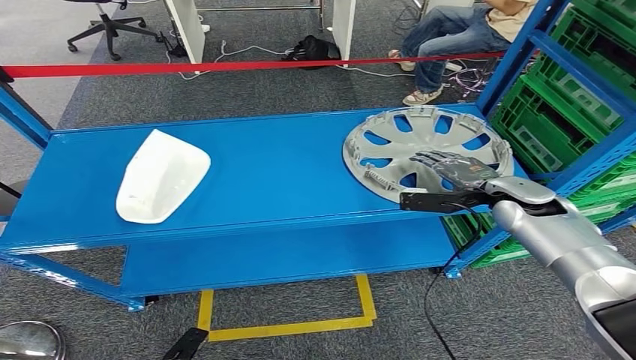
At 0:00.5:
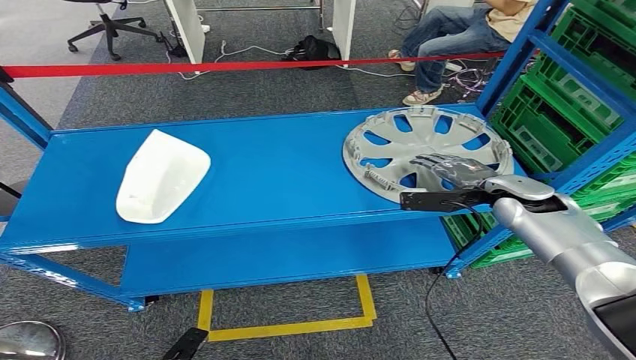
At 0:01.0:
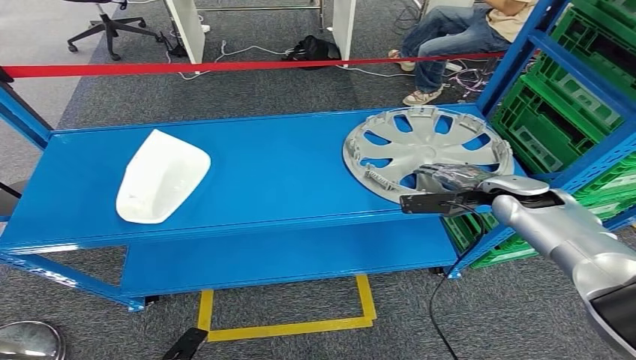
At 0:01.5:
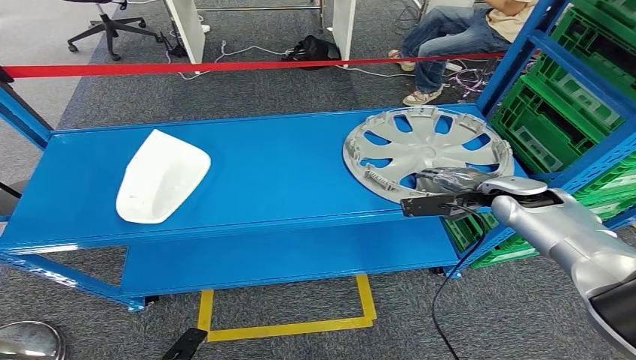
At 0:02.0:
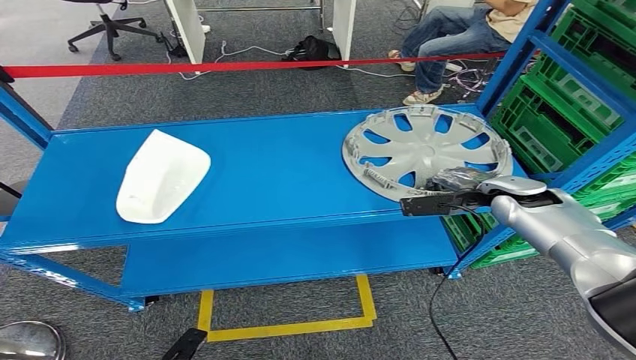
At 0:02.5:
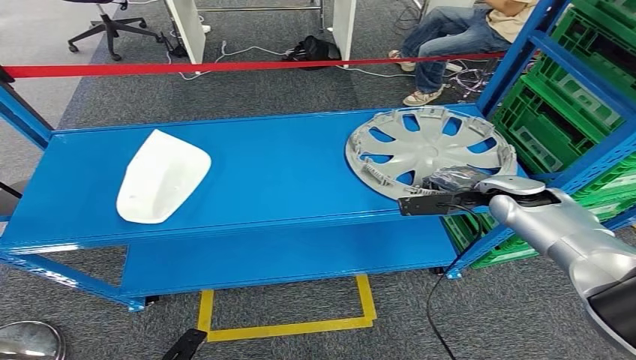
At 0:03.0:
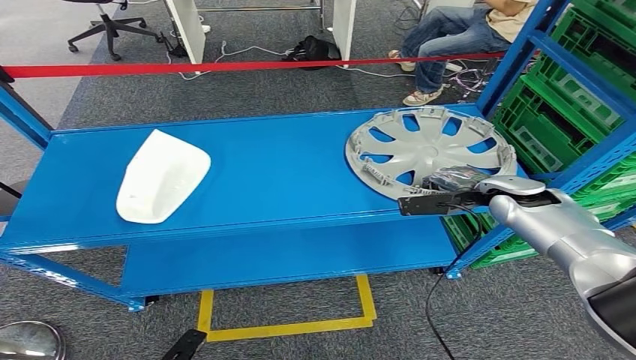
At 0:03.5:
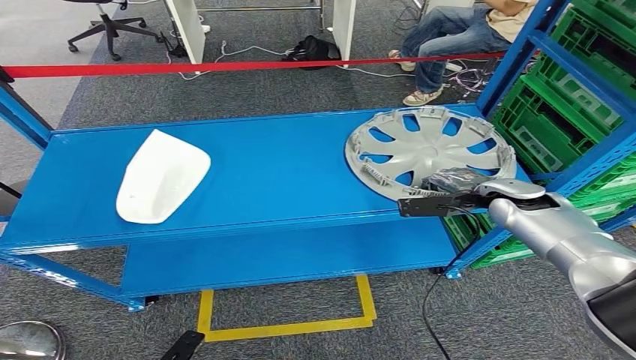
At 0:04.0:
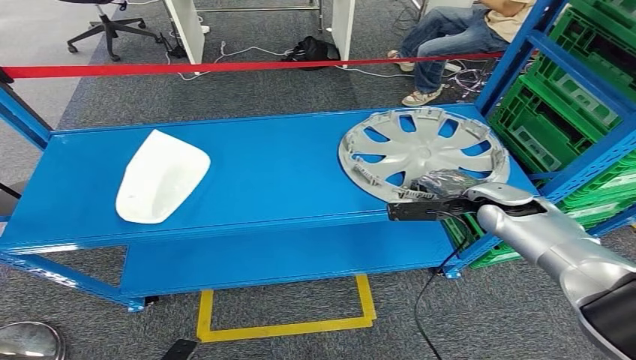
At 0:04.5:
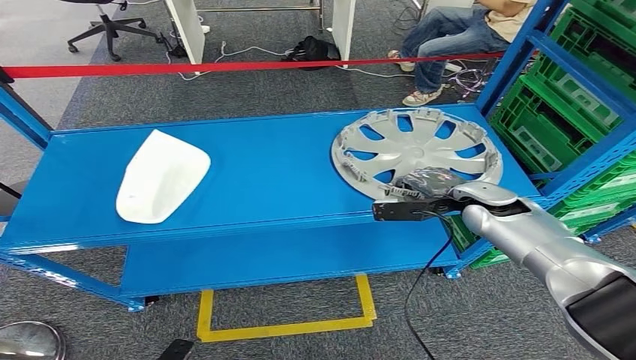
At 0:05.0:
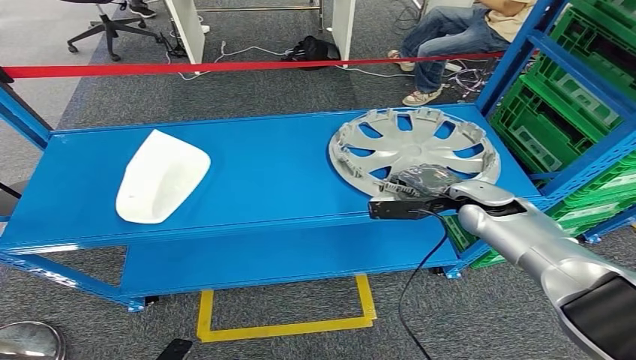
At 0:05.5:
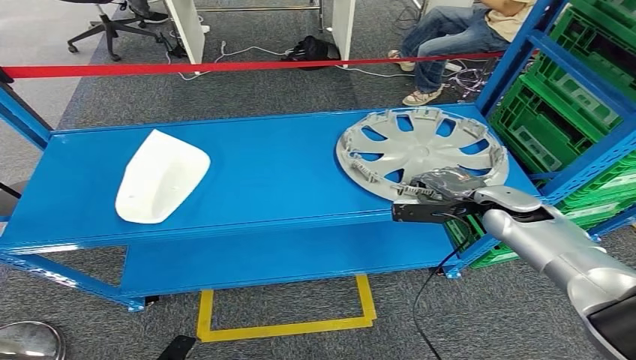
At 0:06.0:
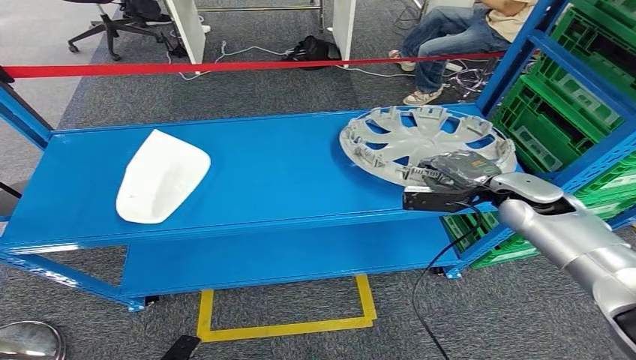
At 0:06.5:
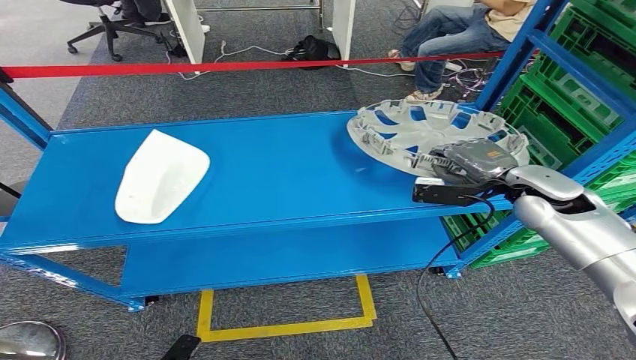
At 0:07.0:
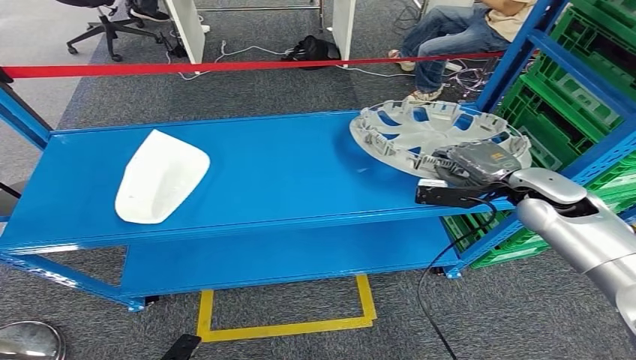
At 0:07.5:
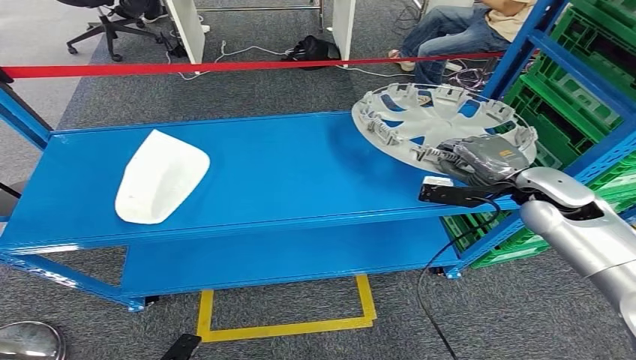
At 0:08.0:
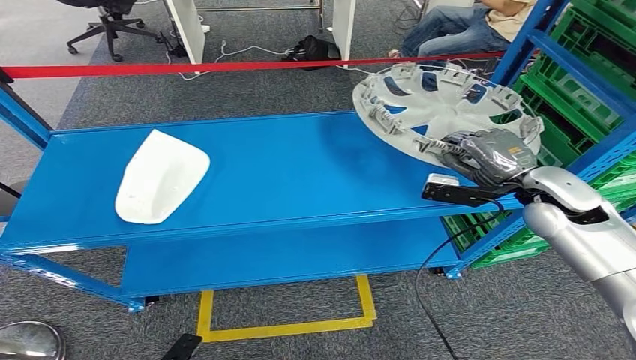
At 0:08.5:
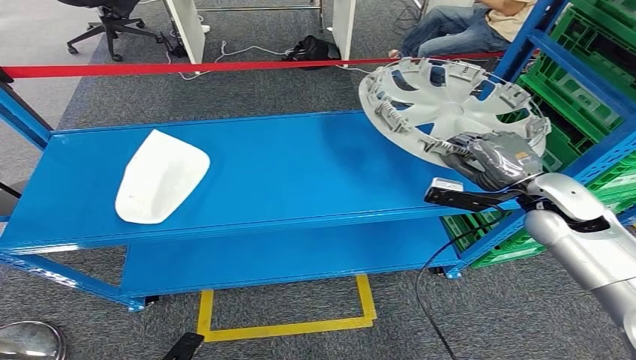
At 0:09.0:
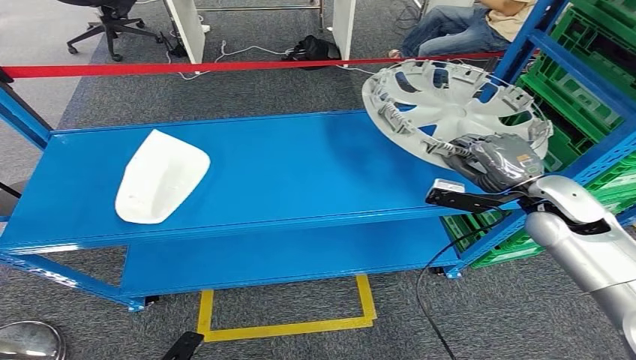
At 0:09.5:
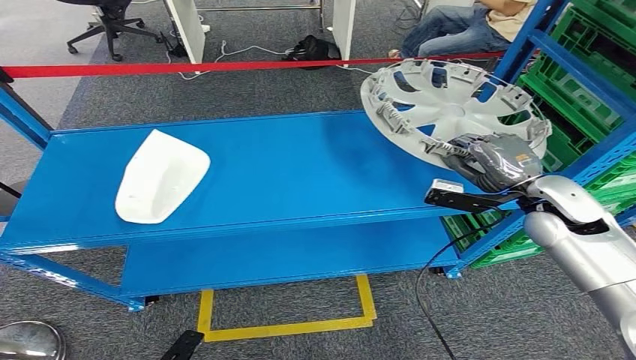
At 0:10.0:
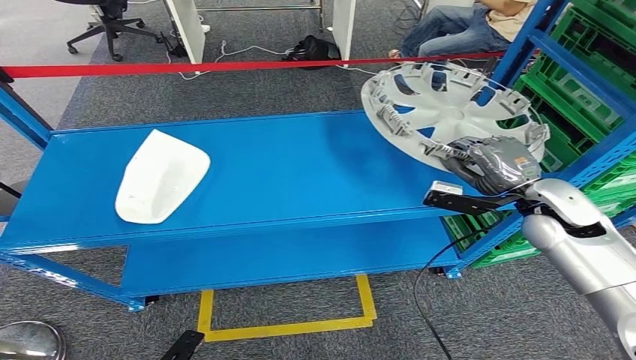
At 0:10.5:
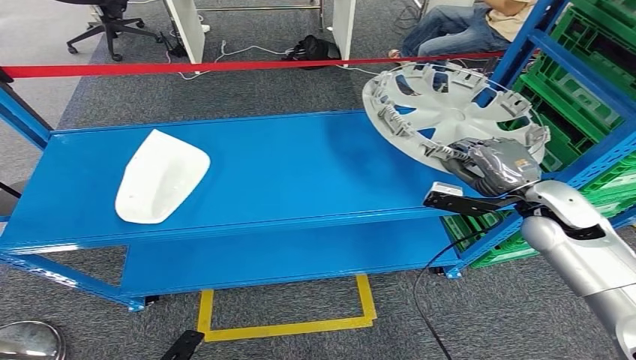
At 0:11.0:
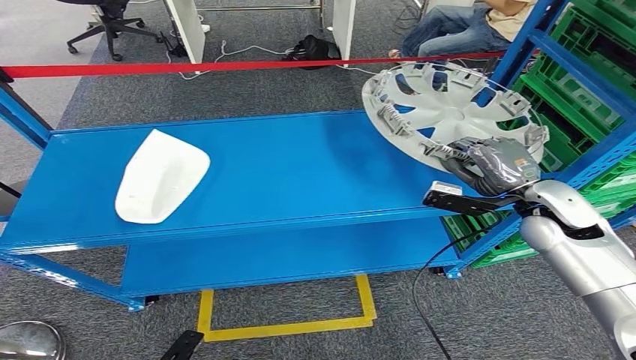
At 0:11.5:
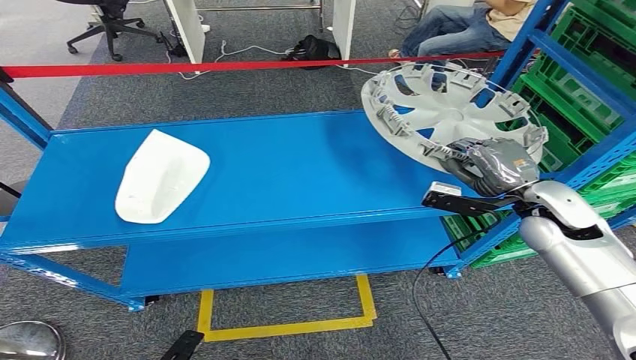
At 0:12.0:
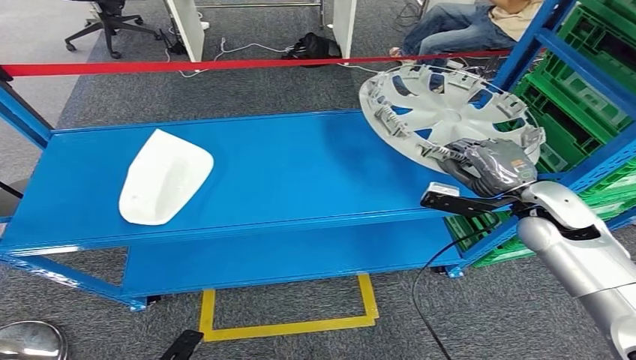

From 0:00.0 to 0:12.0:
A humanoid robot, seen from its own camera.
Step, from 0:00.0 to 0:02.5: Grasp the gray part with right gripper.
From 0:00.0 to 0:06.0: The hands make only small movements.
From 0:06.0 to 0:08.0: The hands move only a little.
From 0:08.0 to 0:10.0: The hands move only a little.
From 0:10.0 to 0:12.0: Both hands stay about where they are.

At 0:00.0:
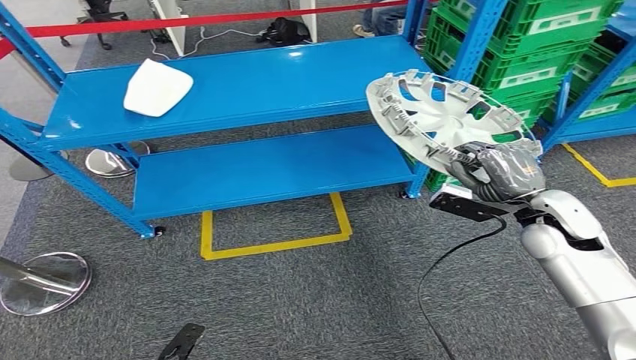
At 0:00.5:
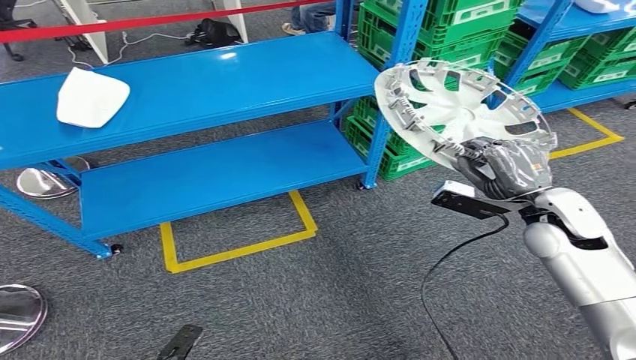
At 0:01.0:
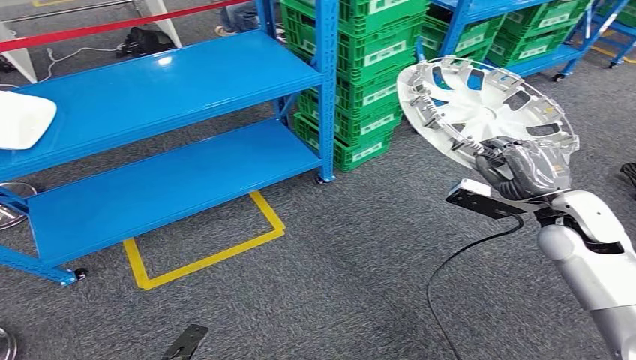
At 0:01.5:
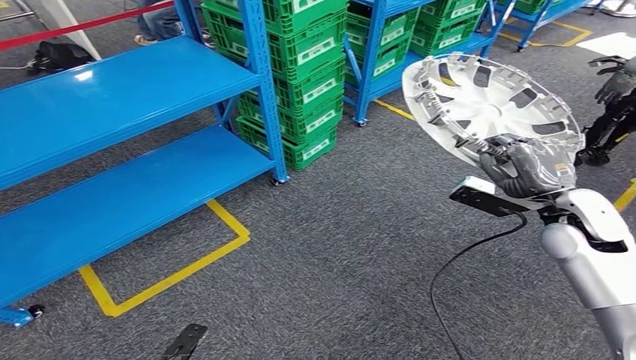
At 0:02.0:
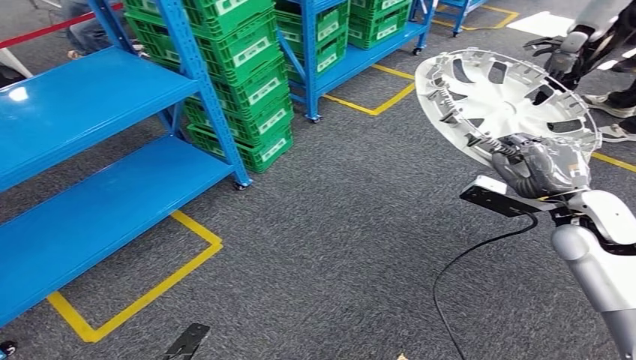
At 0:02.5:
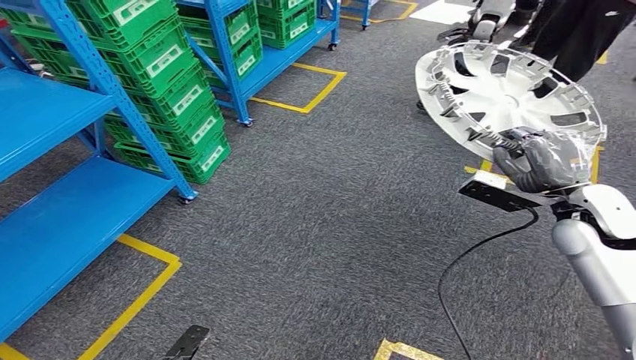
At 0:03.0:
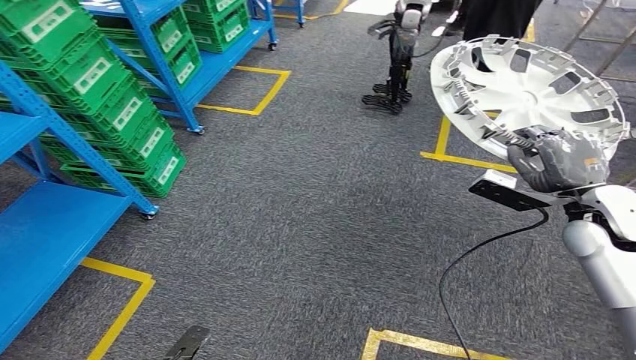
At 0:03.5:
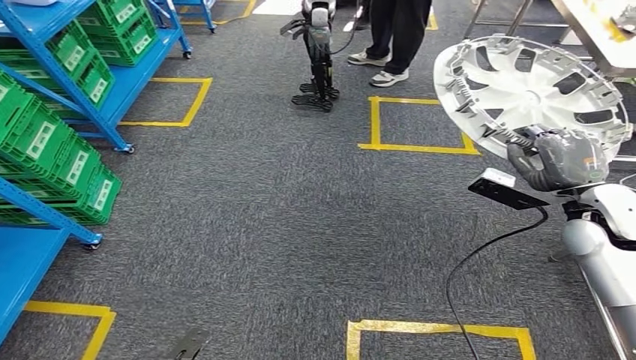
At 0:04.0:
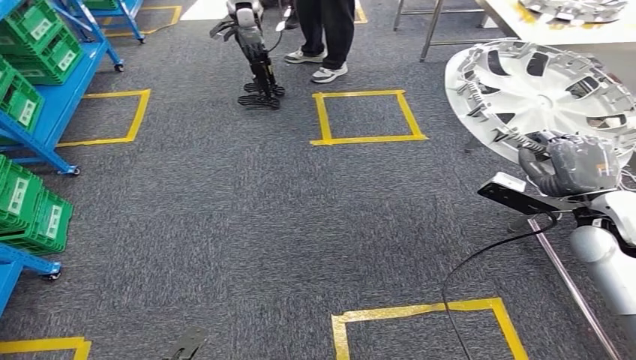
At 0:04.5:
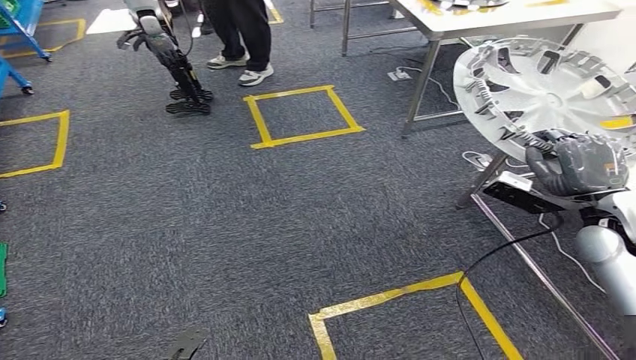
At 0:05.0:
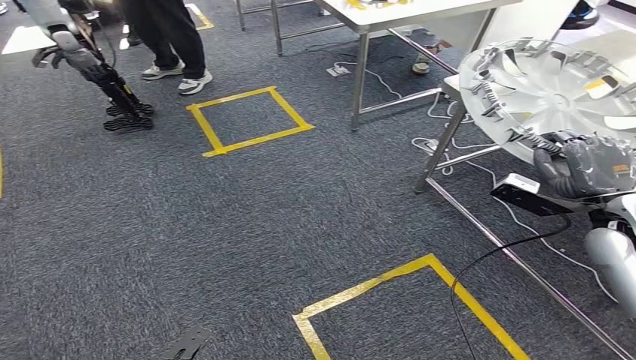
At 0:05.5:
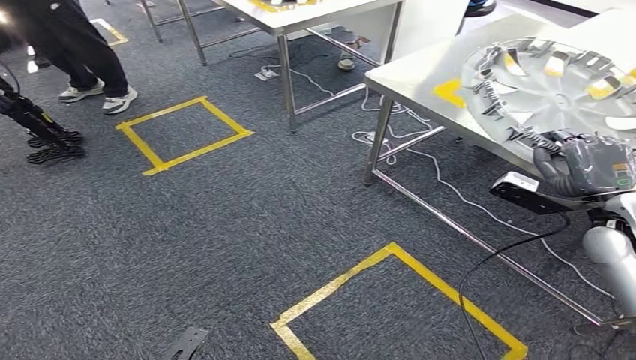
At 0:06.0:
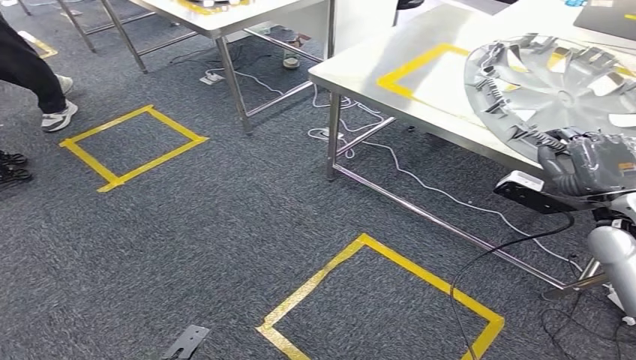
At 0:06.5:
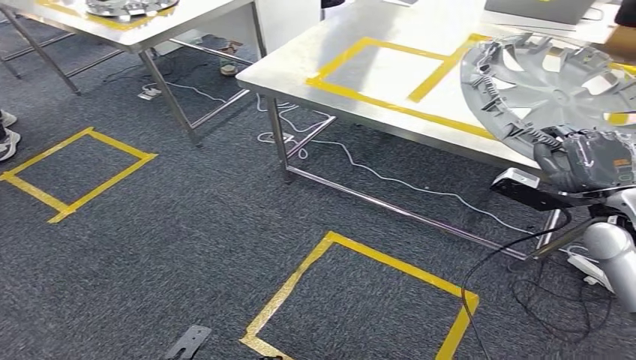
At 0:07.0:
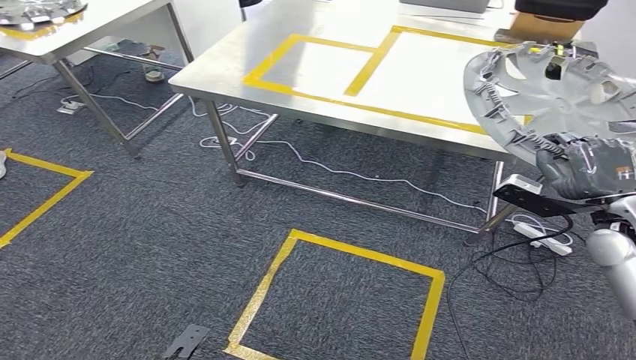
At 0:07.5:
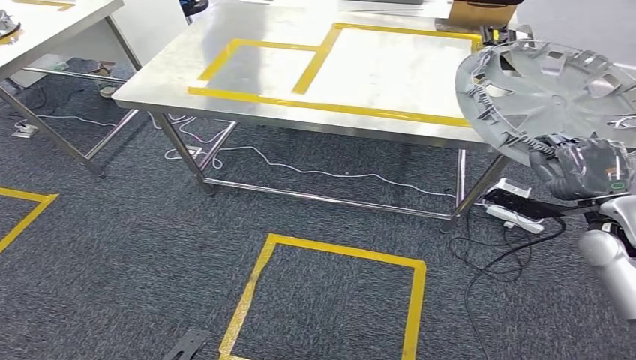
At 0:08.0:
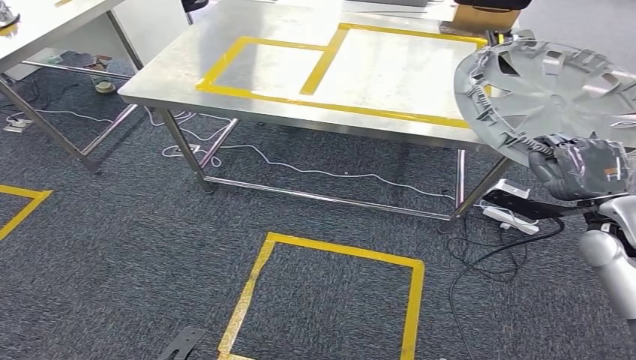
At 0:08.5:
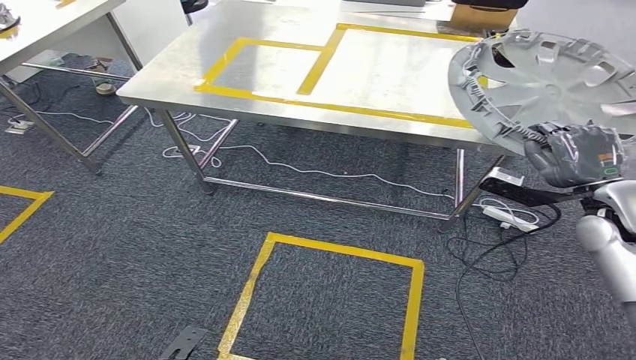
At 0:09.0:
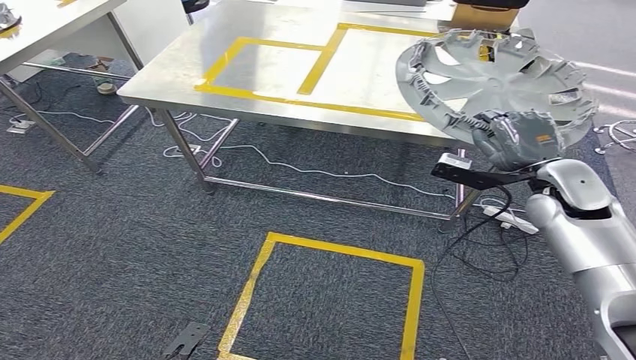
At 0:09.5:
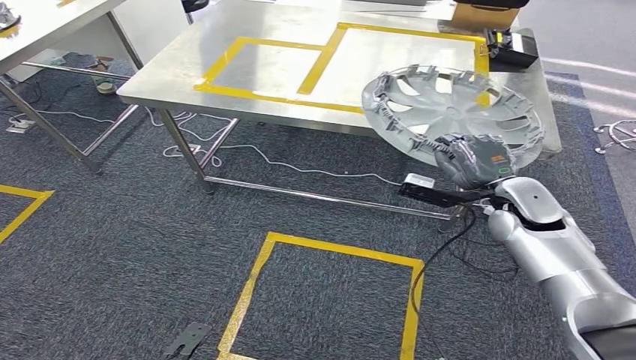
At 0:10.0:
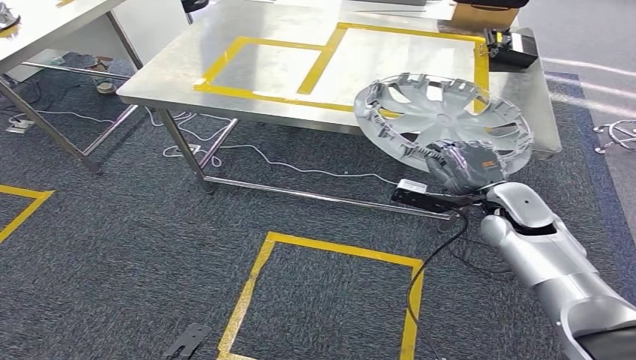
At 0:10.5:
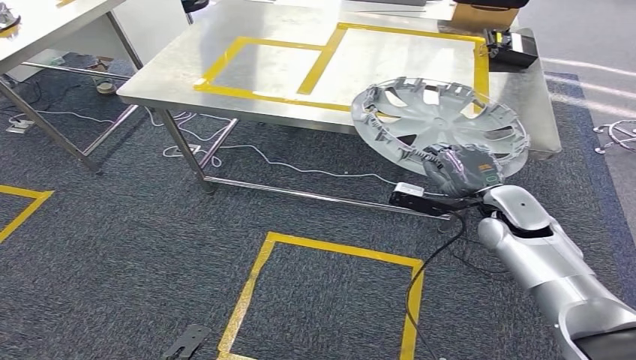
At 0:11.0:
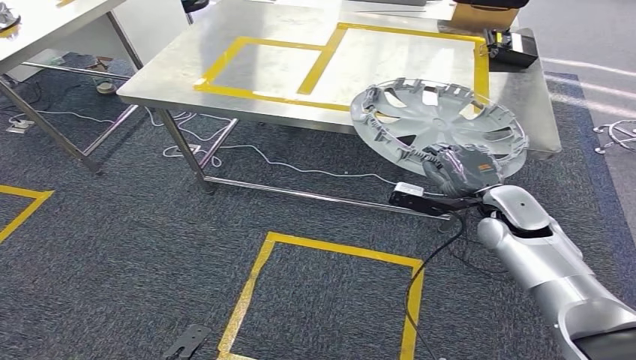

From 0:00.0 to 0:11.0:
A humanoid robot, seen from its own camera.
From 0:09.0 to 0:11.0: The right hand heads downward and to the left, covering roughly 10 cm.
